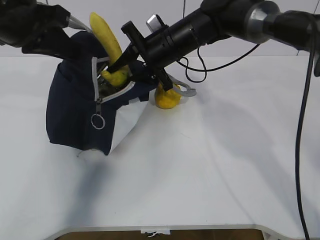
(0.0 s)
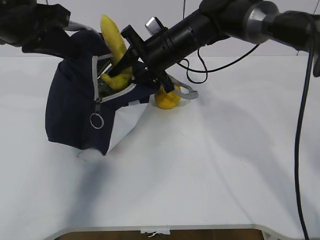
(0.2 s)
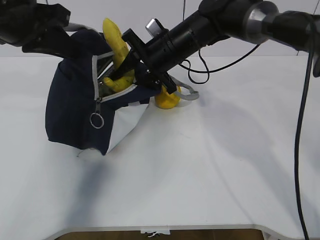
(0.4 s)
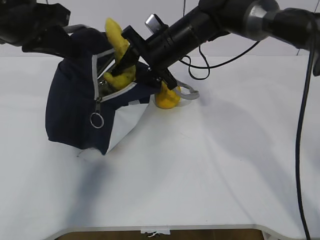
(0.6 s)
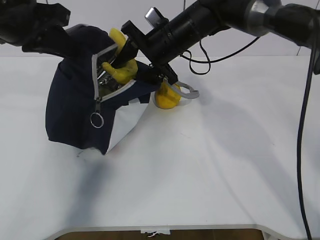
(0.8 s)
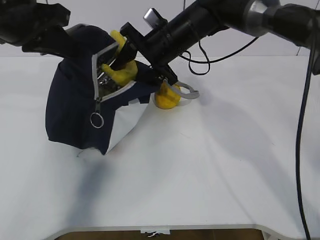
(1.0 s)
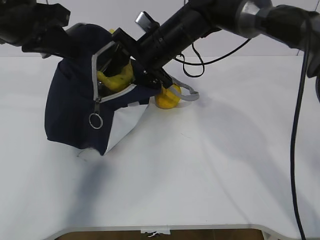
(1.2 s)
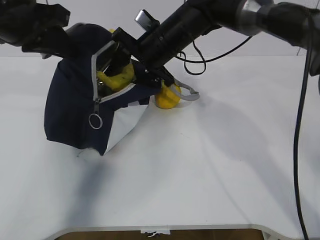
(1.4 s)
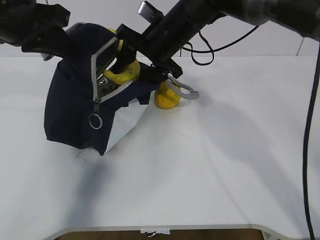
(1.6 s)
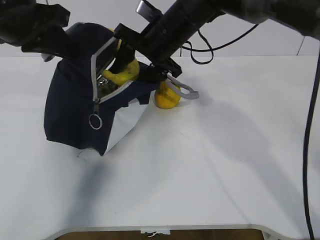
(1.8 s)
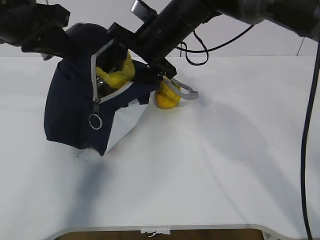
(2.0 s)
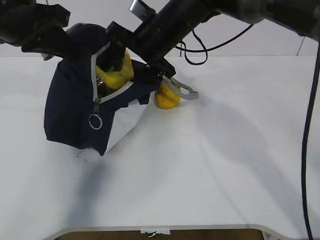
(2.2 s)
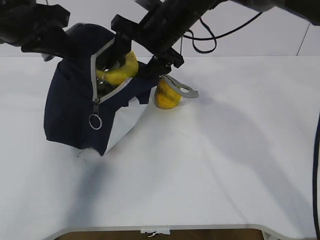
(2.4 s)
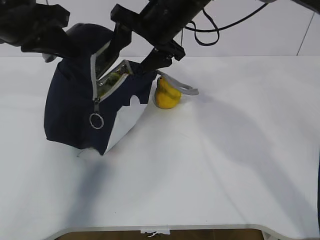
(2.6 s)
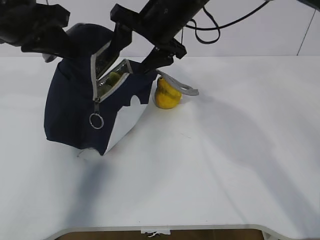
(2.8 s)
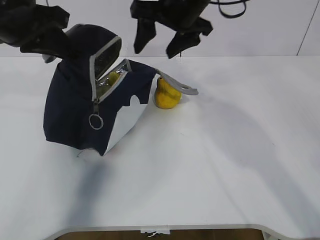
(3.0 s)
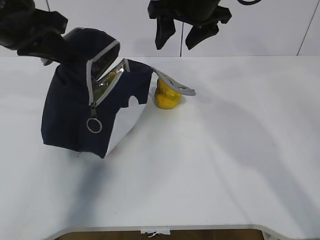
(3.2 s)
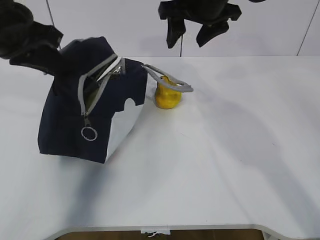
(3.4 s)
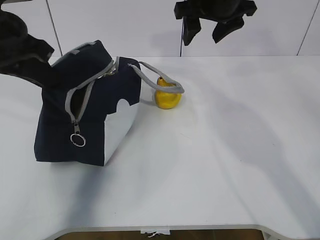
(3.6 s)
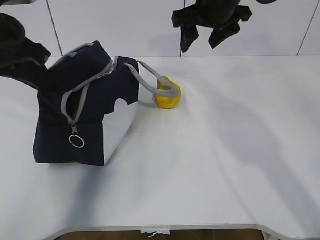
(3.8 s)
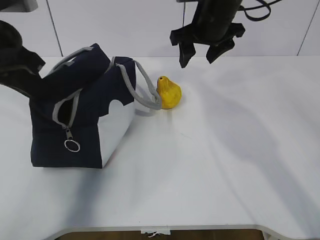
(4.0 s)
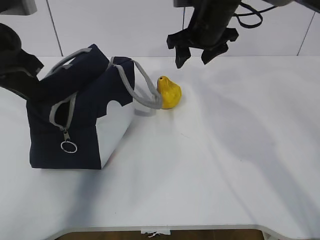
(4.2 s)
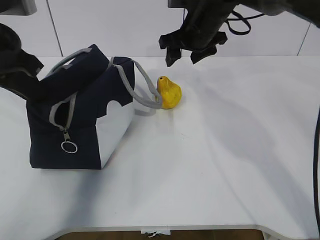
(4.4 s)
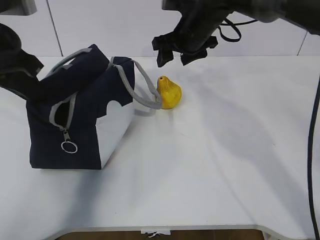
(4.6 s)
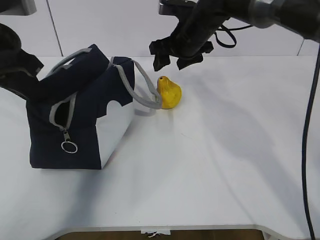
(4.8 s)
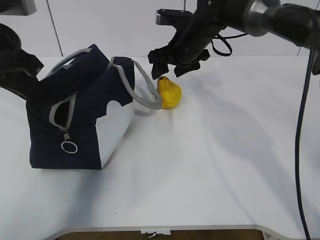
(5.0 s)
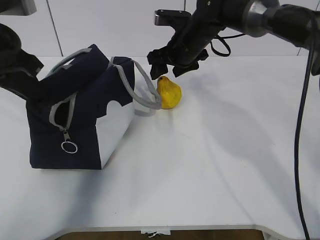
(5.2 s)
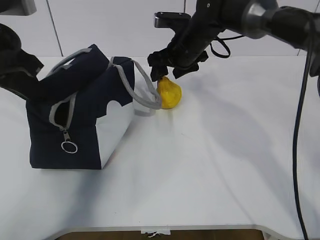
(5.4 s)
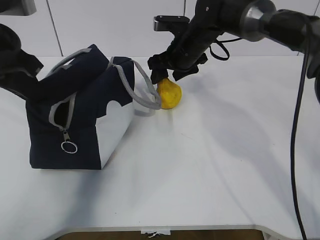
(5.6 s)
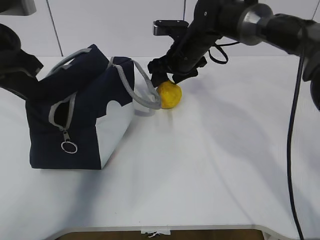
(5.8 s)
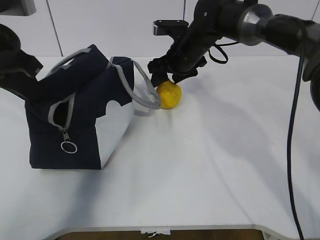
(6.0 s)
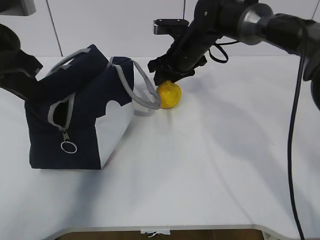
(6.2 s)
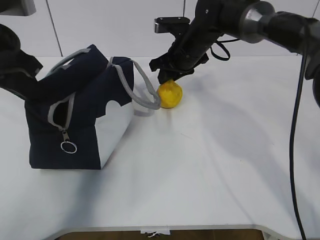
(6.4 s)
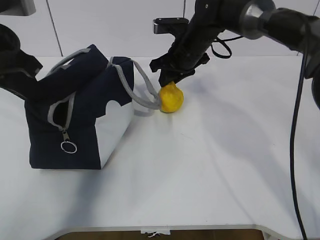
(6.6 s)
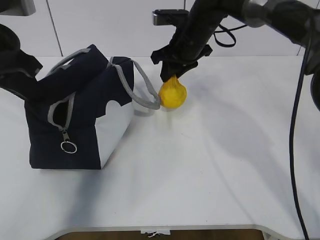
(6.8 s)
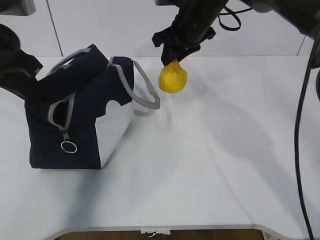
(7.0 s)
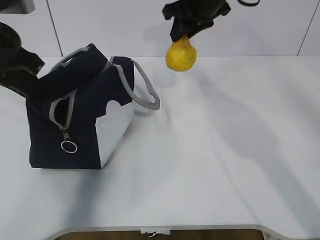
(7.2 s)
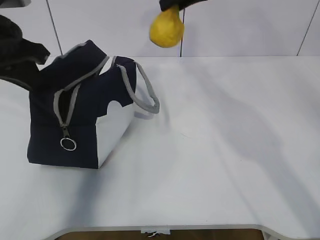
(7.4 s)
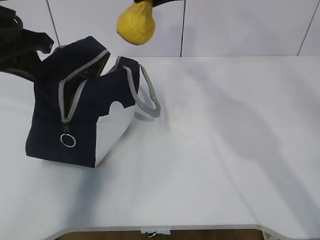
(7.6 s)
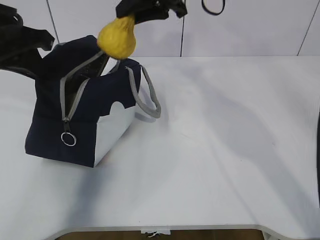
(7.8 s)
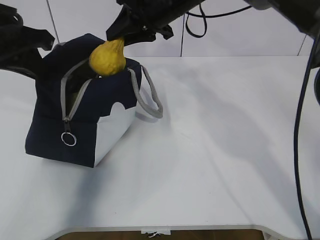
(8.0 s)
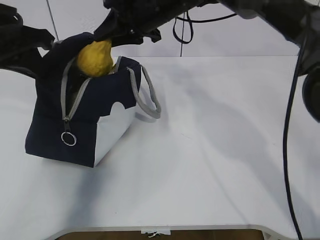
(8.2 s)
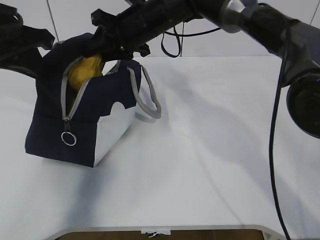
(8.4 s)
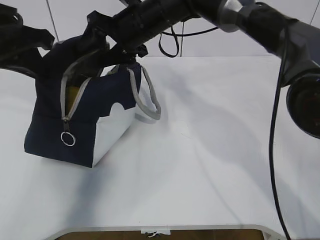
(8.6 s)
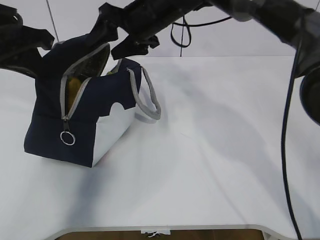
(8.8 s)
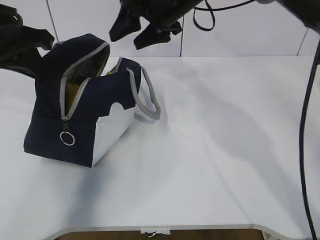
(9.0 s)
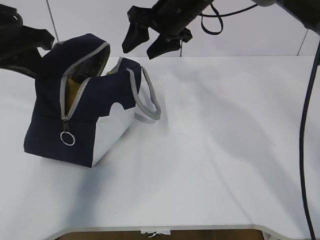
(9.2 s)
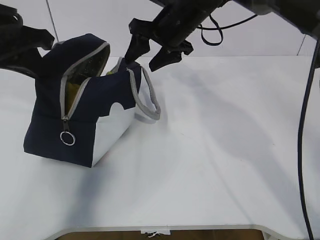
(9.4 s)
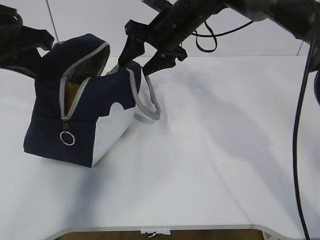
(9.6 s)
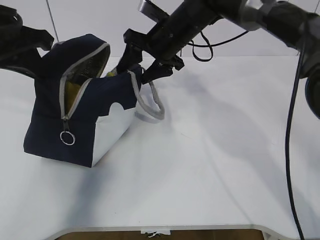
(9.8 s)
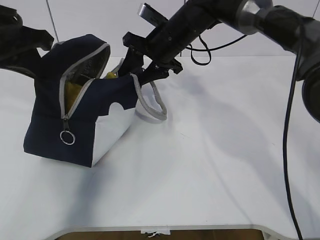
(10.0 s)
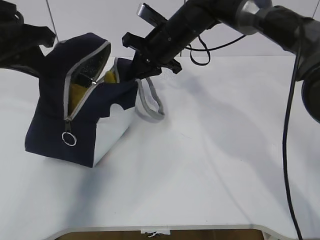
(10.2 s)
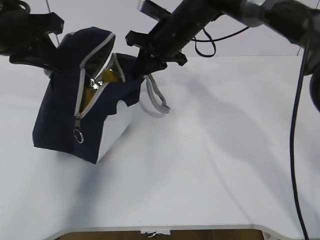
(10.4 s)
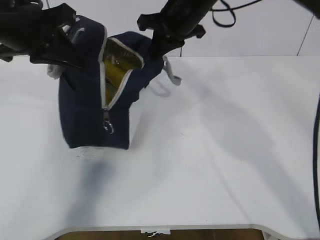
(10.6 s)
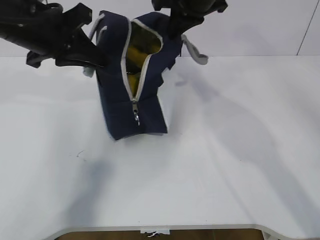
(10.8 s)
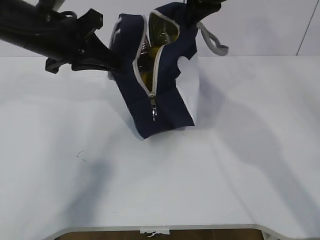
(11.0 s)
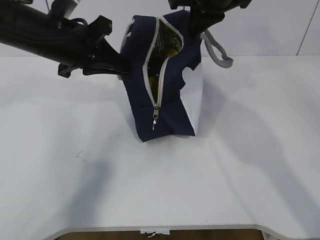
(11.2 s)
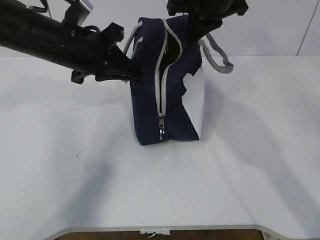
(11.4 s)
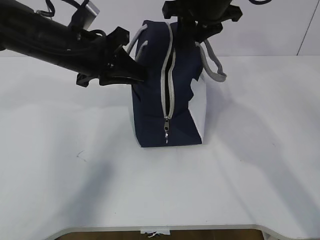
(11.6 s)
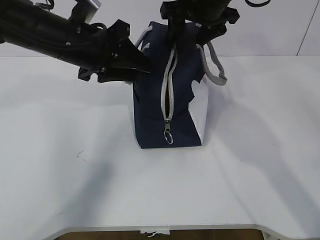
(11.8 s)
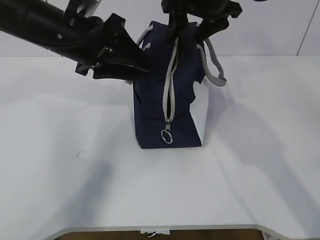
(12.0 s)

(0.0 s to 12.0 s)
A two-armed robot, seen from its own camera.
Step, 3.8 s - 4.4 s: Grab the lunch bag with your right hand.
Step, 4.6 s - 6.6 s: Move the lunch bag to the right.
1.6 s - 3.0 s: The right gripper moves upward, about 5 cm.
3.0 s - 4.4 s: The right gripper shifts roughly 10 cm downward and forward.
4.4 s - 6.0 s: The right gripper goes about 5 cm downward.
6.0 s - 7.6 s: The right gripper is displaced upward by roughly 20 cm, and closes up.
7.6 s - 9.0 s: The right gripper goes roughly 5 cm downward, and opens.
9.0 s - 10.4 s: The right gripper shifts approximately 5 cm downward, and closes up.
10.4 s - 12.0 s: The right gripper shifts some 10 cm upward and to the right, and opens up; the left gripper shifts roughly 5 cm to the right, and opens its fingers.

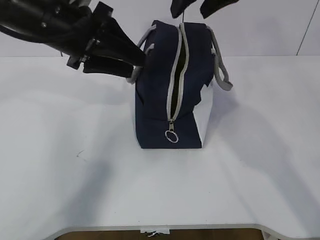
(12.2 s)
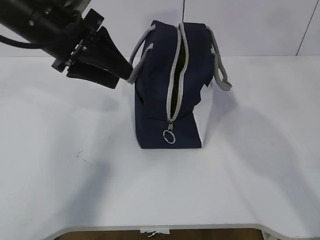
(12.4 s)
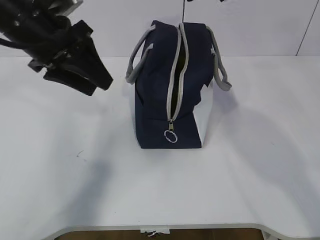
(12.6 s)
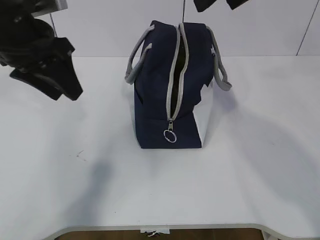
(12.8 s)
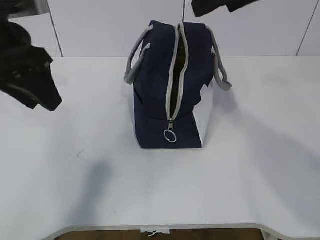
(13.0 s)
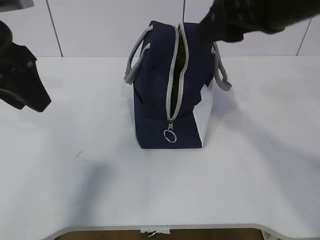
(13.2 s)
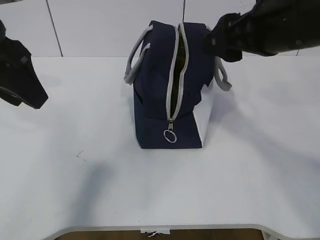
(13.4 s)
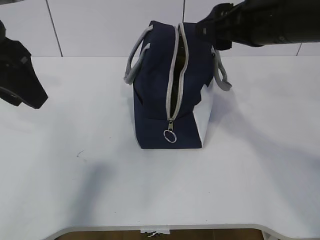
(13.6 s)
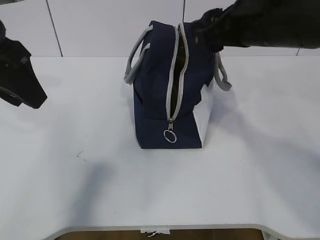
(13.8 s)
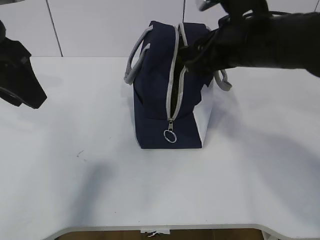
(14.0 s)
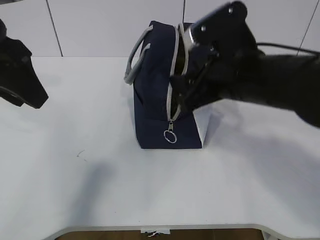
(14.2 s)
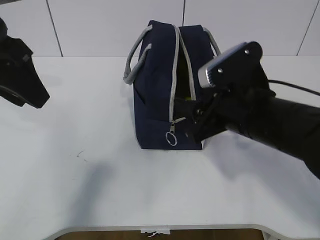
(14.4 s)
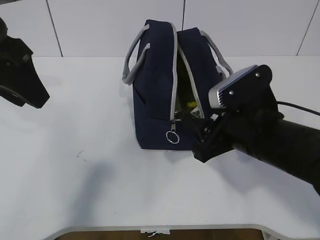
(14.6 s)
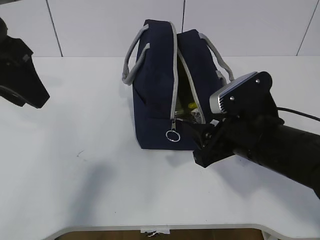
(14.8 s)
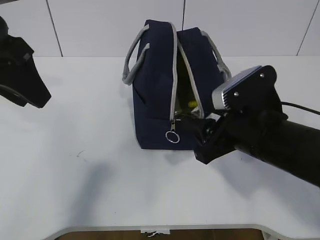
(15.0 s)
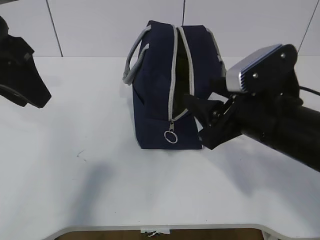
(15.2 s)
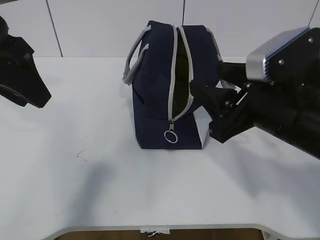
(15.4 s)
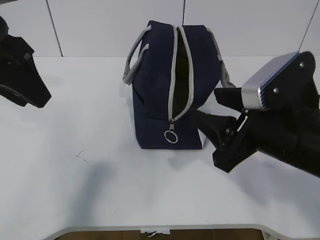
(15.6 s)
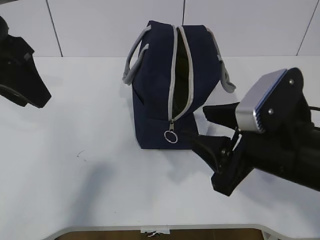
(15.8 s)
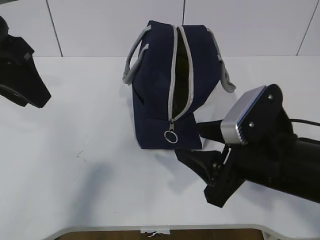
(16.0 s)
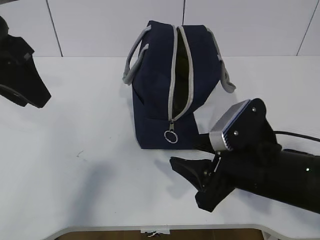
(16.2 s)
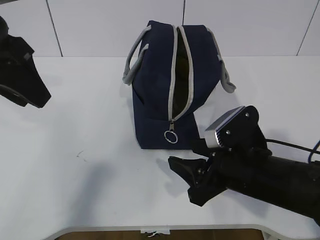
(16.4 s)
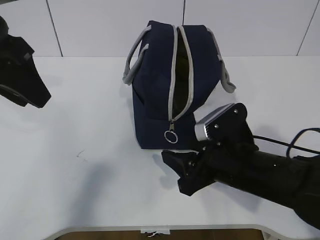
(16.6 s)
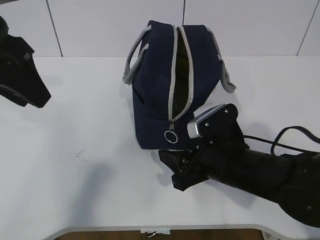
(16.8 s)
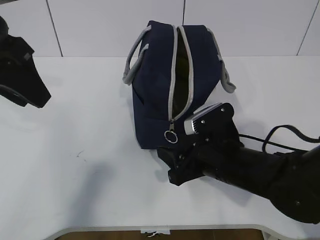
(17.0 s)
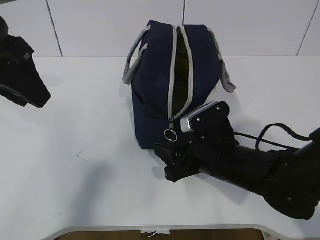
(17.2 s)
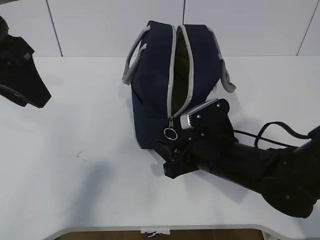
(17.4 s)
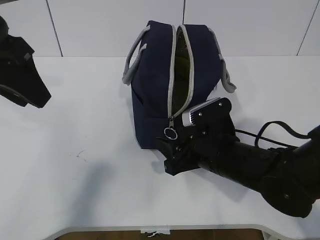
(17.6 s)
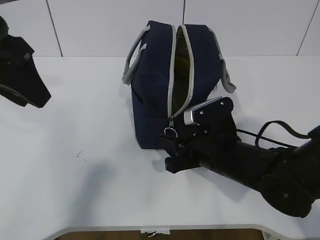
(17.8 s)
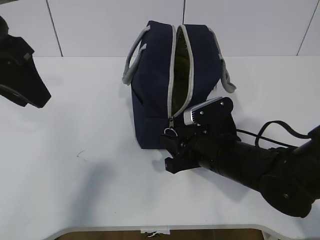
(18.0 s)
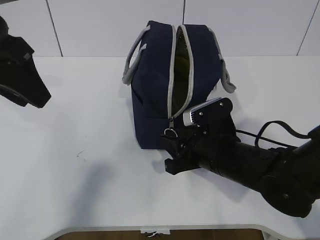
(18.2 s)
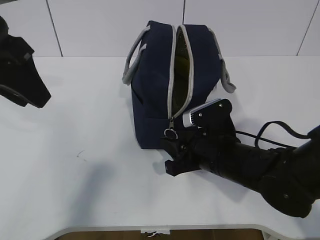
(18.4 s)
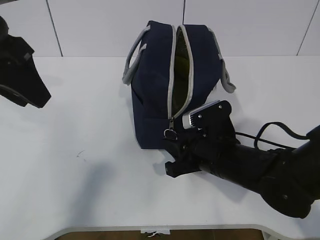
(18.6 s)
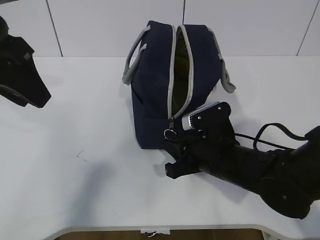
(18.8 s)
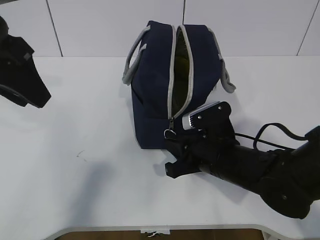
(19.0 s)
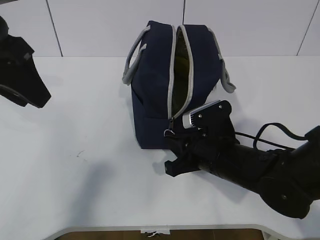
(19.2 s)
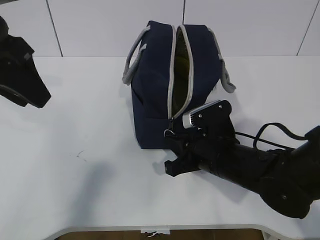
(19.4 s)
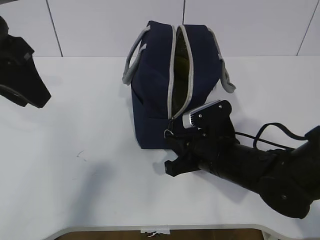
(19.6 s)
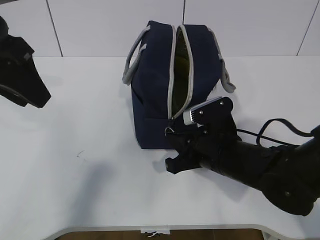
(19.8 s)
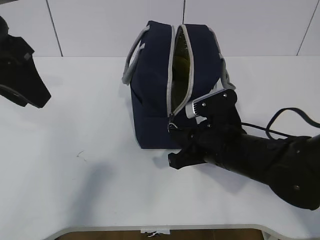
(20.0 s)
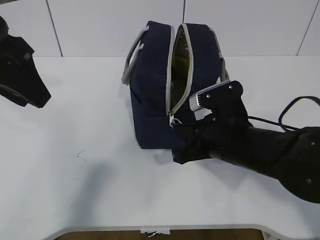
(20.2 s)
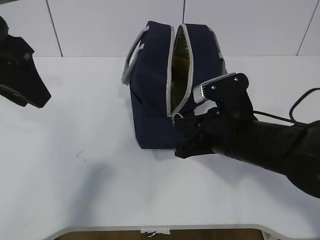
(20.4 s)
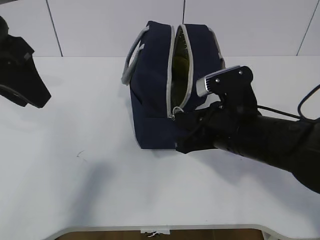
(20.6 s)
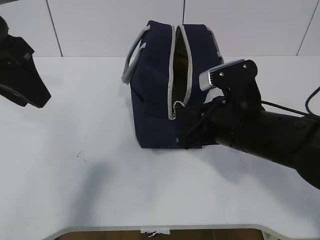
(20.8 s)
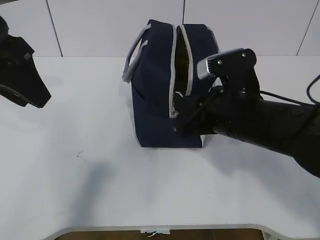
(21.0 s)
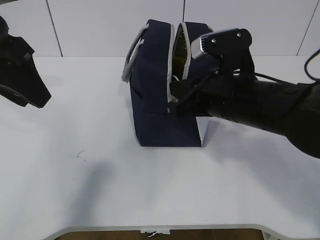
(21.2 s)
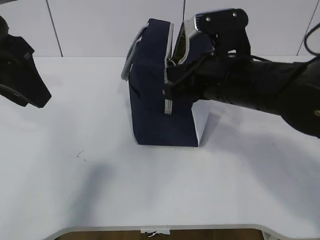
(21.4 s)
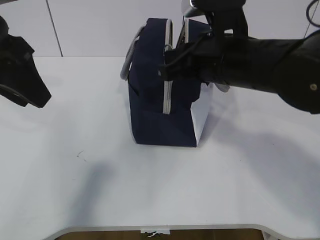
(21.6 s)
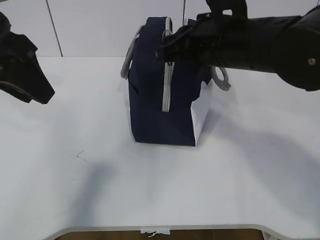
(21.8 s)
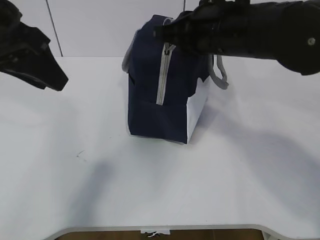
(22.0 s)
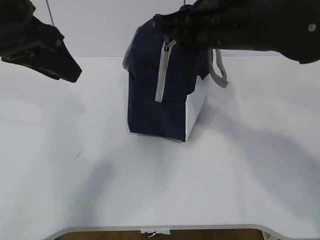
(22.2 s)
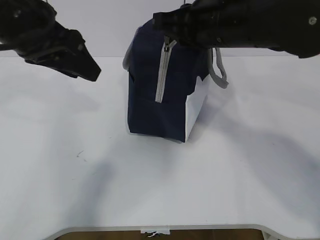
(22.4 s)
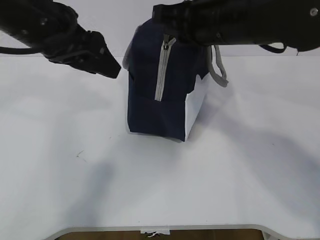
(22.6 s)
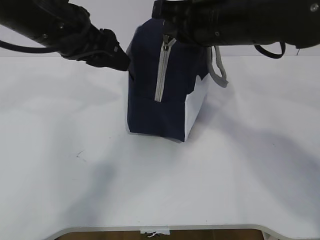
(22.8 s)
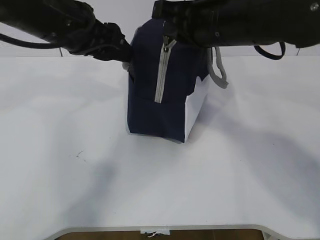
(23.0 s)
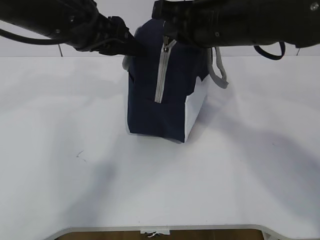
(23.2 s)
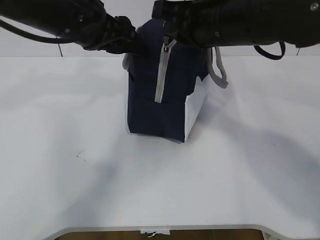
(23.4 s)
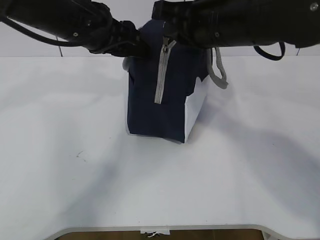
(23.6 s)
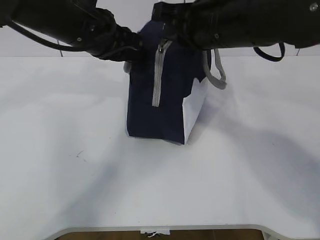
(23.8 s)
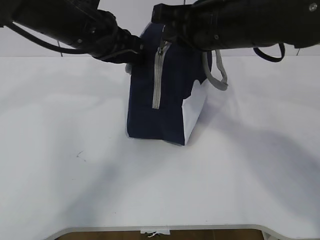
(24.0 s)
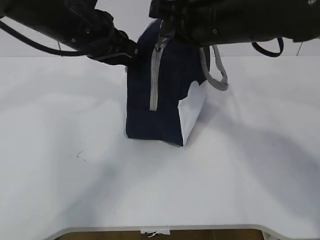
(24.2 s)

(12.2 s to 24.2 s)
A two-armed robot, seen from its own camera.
Step, 12.2 s - 17.8 s: Grab the lunch bag with your left hand.
Step, 18.0 s - 21.6 s: Pull the zipper with your right hand.
Step, 21.8 s - 22.6 s: Grab the lunch bag with your left hand.
12.2 s - 13.8 s: The right gripper shifts some 10 cm backward and downward. The left gripper is displaced backward and to the left by roughly 10 cm.
13.8 s - 15.2 s: The right gripper moves downward and backward, approximately 10 cm.
15.2 s - 16.6 s: The right gripper is displaced downward by roughly 10 cm.
16.6 s - 18.2 s: The grippers make only small movements.
18.2 s - 19.8 s: The right gripper closes up.
19.8 s - 21.2 s: The right gripper is displaced upward by about 10 cm.
21.2 s - 22.6 s: The right gripper is displaced upward by some 10 cm; the left gripper goes about 5 cm to the right.
22.6 s - 24.2 s: The left gripper changes place by some 5 cm, and closes its fingers.
